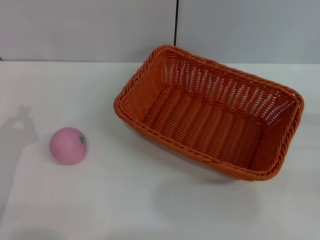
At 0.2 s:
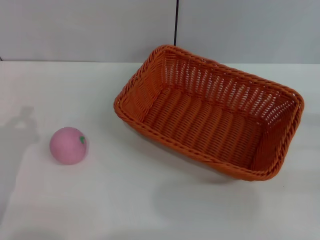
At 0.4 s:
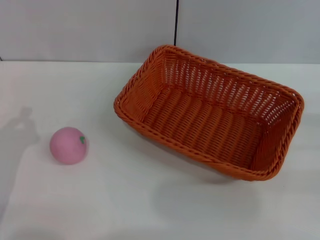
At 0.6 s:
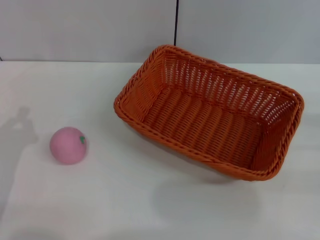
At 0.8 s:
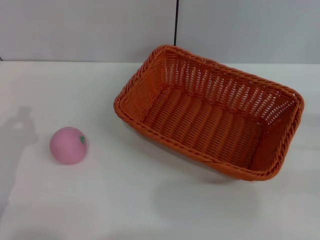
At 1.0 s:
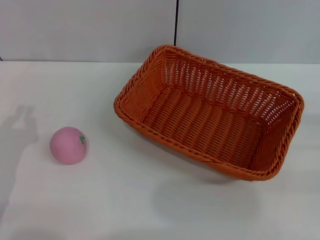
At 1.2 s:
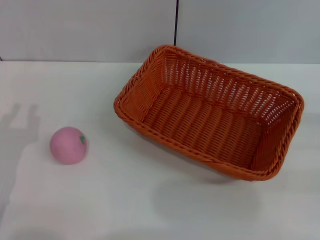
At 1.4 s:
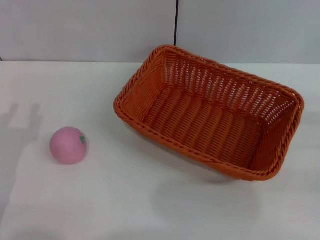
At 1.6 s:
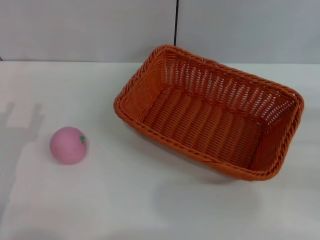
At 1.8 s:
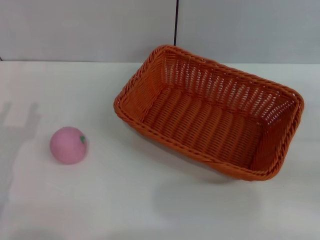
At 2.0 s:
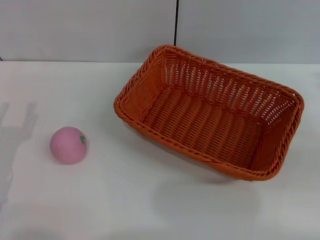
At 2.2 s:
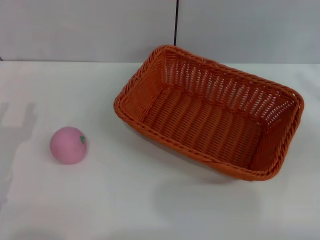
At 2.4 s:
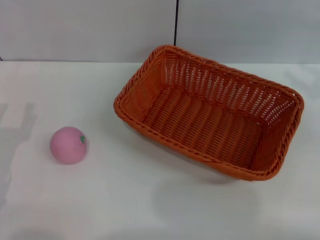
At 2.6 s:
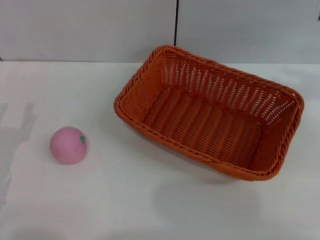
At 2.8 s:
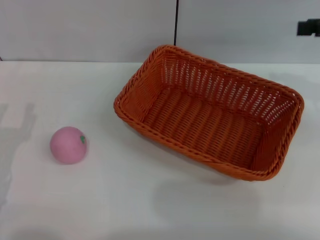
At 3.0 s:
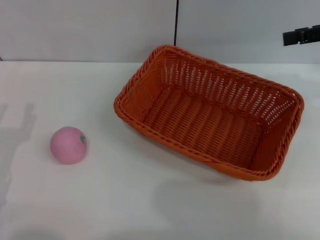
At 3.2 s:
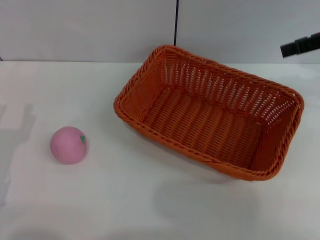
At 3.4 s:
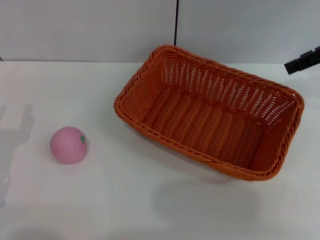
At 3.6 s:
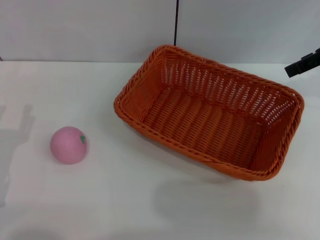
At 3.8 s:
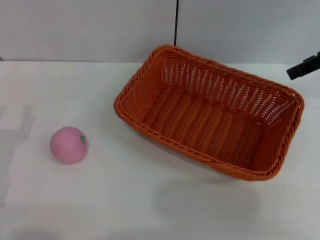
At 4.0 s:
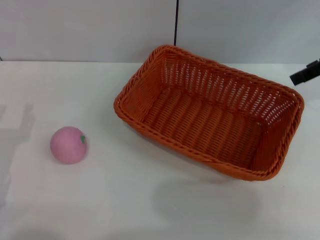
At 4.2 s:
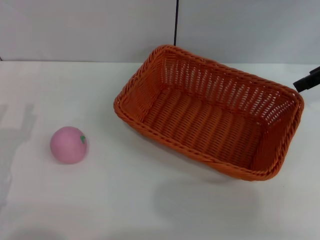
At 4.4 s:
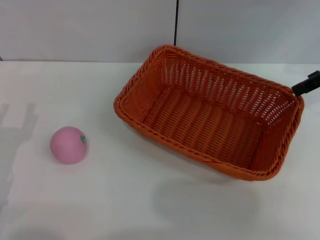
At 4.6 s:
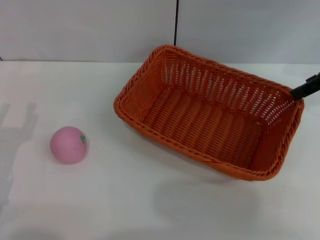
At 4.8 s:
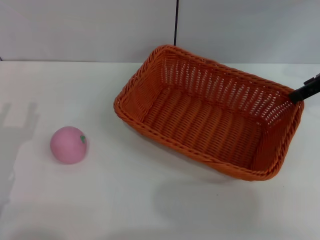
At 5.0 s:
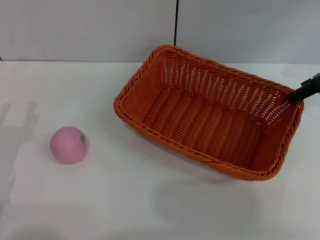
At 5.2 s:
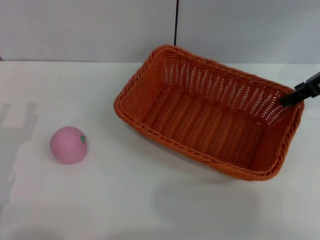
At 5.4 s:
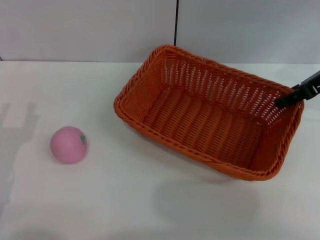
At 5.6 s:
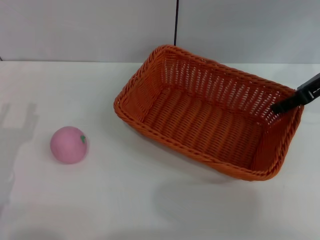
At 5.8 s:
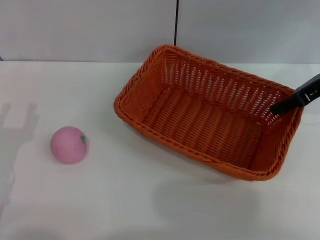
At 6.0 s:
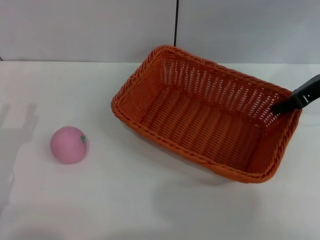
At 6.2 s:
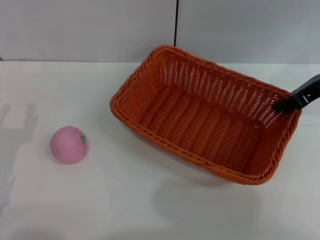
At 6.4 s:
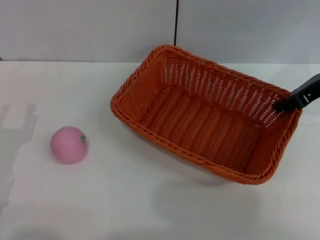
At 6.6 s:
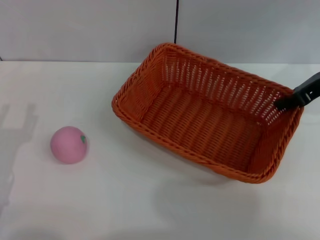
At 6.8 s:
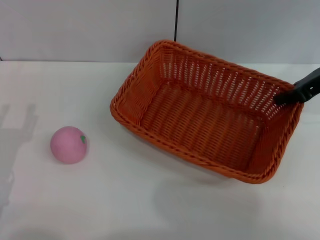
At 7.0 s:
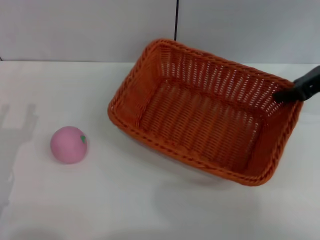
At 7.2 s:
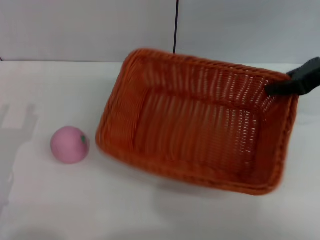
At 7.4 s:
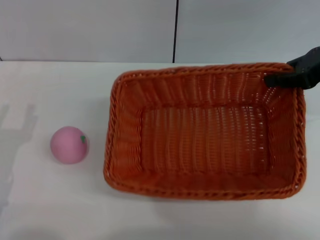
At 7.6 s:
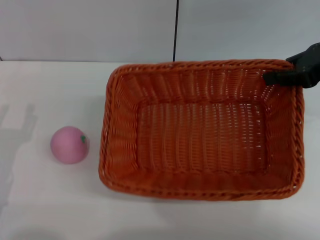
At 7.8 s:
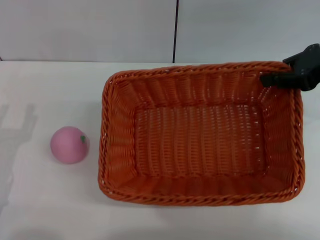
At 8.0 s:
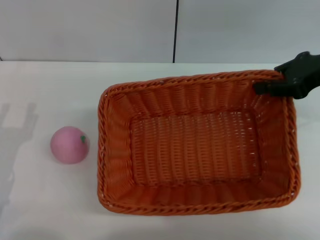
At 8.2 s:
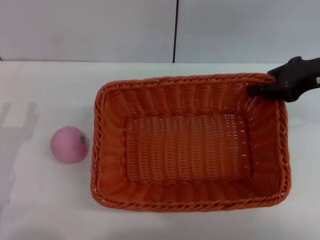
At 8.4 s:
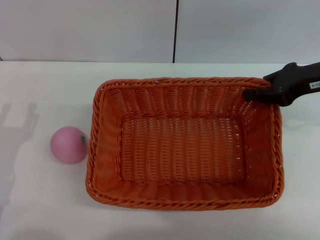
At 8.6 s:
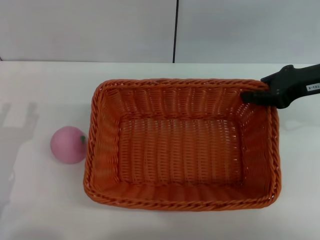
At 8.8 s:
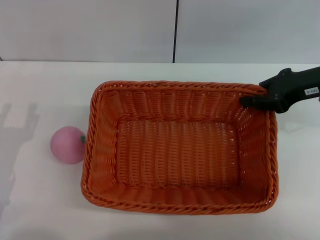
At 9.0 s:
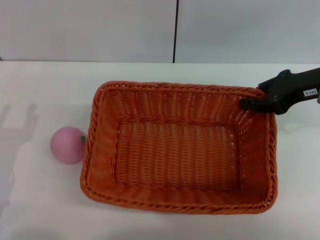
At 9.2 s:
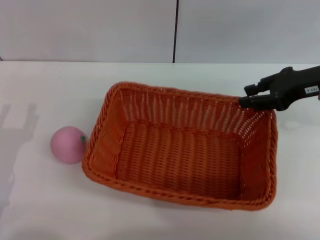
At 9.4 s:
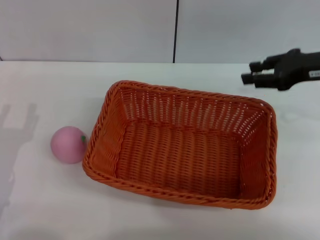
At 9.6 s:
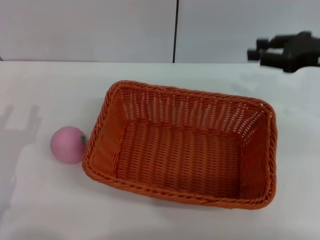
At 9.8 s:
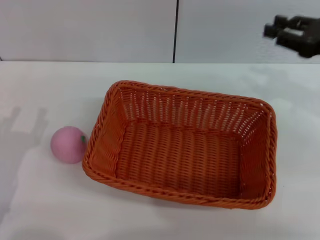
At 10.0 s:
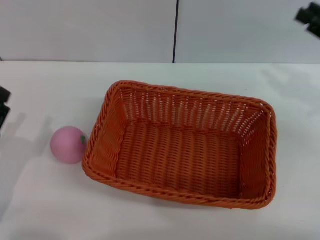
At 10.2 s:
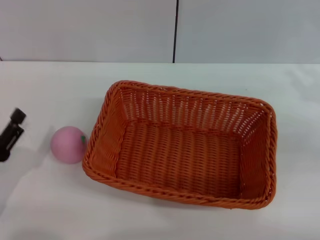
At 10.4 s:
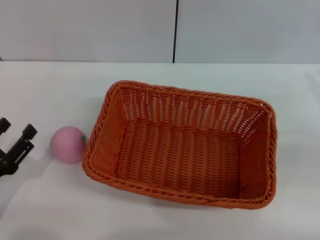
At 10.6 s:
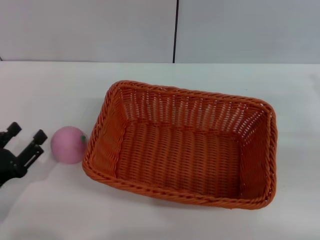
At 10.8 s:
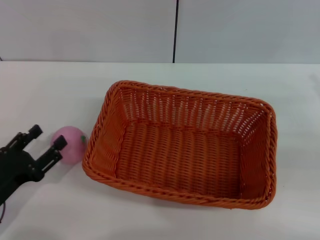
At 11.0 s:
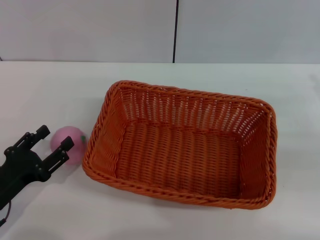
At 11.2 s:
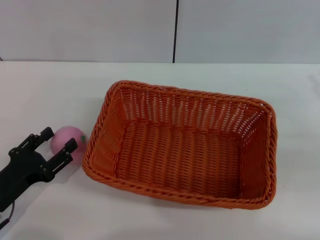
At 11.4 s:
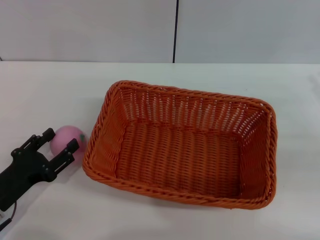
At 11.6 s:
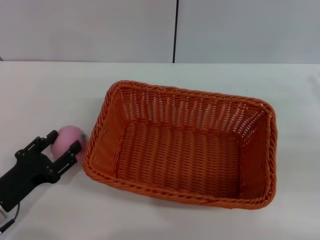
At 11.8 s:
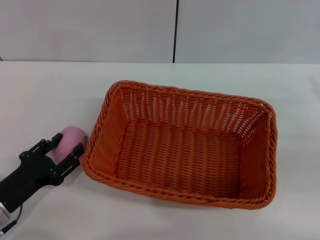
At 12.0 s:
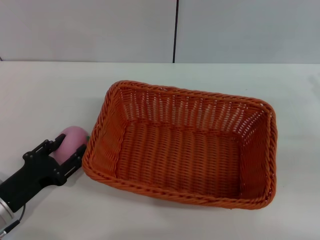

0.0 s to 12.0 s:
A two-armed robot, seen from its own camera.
Step, 0.0 to 7.0 s: Pick up the light basket with the right gripper.
Step, 7.4 to 9.6 s: Place the light basket in the center of view with the right gripper.
1.6 to 3.0 s: The right gripper moves upward, forward and to the left, roughly 25 cm.
4.4 to 6.0 s: The right gripper moves downward, roughly 5 cm.
6.0 to 7.6 s: The right gripper moves upward, roughly 5 cm, and closes up.
7.6 to 9.0 s: The right gripper moves downward, some 5 cm.
9.0 to 10.4 s: The right gripper is displaced to the right and backward by approximately 15 cm, and opens.
10.4 to 12.0 s: The grippers move only a little.

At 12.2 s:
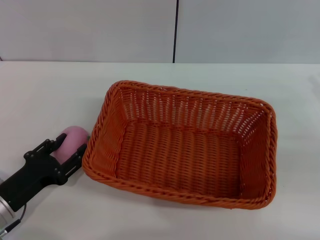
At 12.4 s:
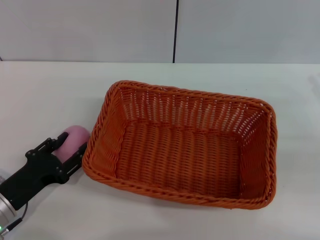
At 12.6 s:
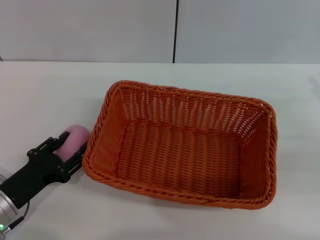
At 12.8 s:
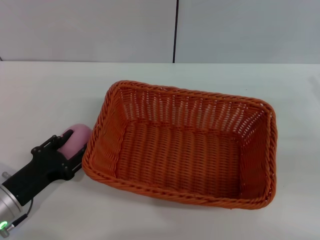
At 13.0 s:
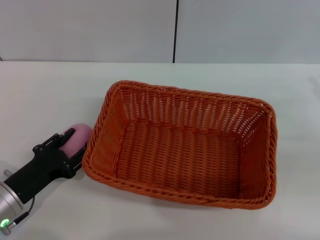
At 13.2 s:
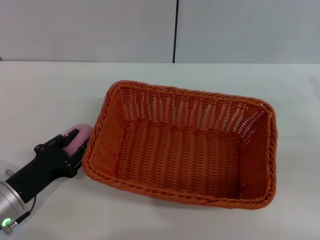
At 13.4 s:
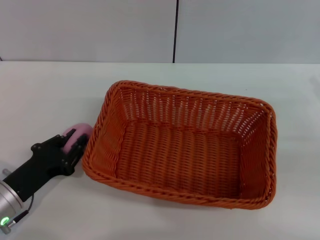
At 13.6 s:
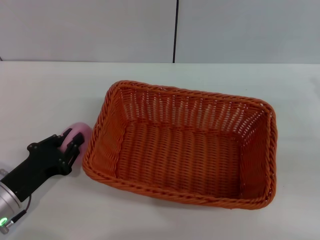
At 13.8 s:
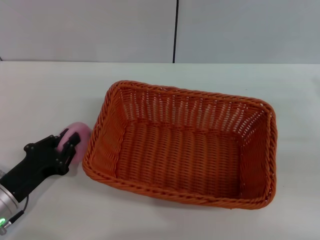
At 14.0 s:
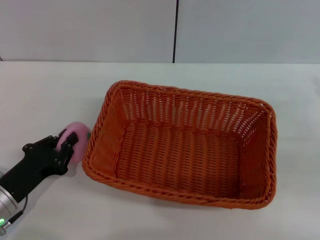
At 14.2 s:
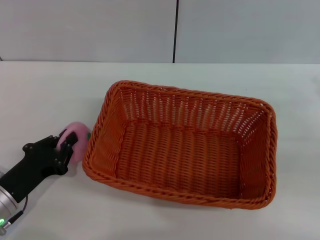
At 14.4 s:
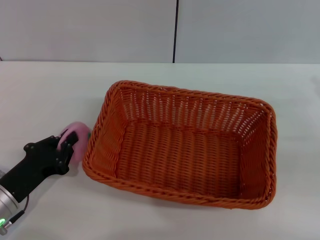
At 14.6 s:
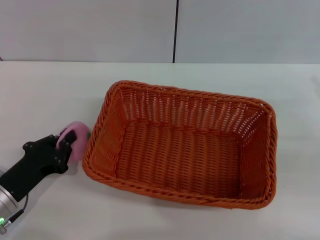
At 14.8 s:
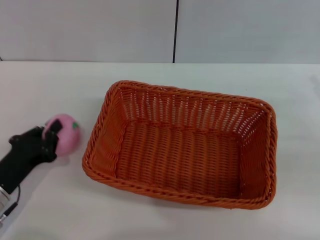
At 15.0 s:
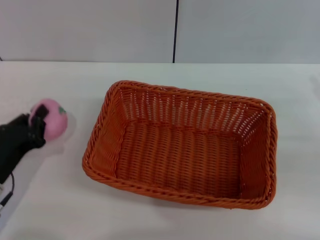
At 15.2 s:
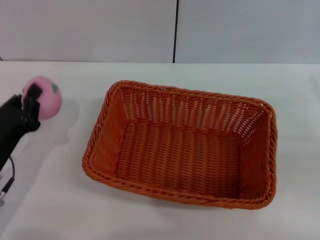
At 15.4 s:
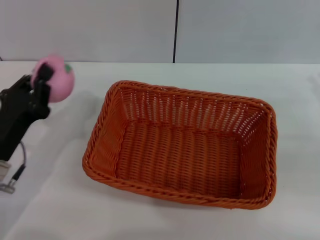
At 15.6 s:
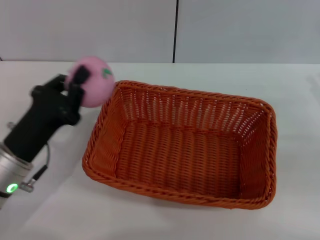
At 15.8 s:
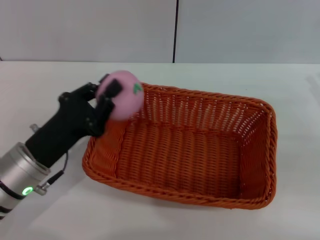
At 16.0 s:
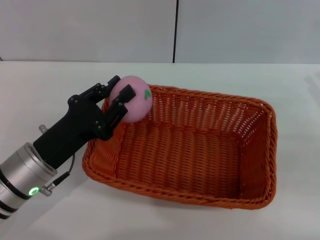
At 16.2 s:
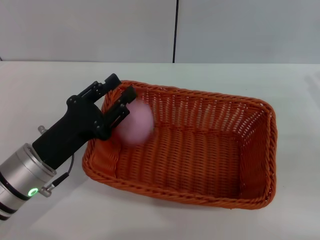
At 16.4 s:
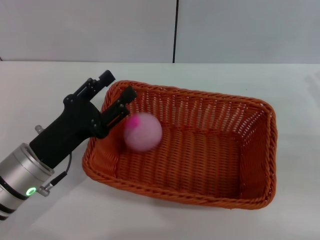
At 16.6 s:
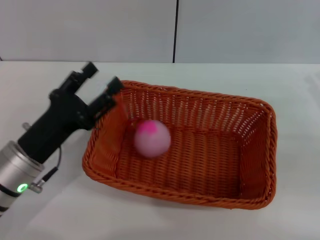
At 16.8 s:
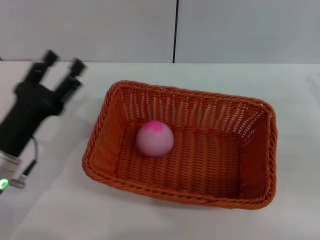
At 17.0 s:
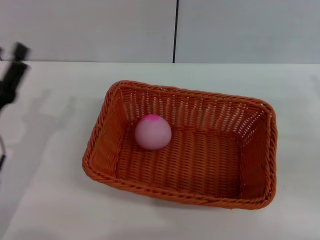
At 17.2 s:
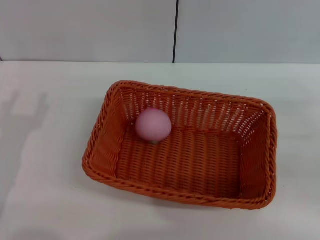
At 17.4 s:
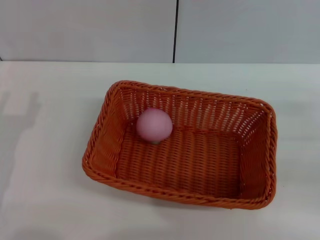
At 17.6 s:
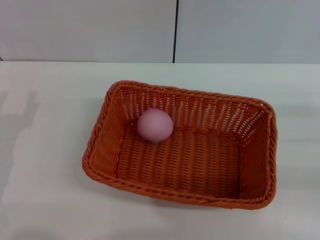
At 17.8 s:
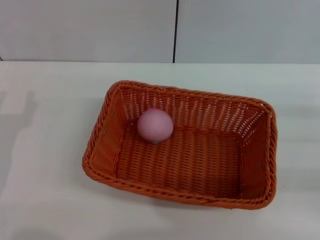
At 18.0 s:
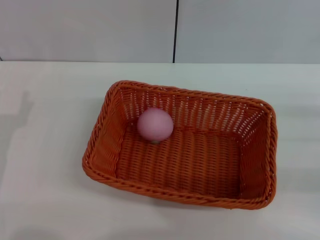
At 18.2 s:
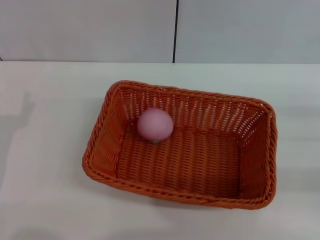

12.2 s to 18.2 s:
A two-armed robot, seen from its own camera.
Step, 12.2 to 15.0 s: Pick up the peach with the left gripper.
Step, 15.2 to 16.4 s: Place the peach into the basket with the left gripper.
12.2 to 13.8 s: The left gripper closes up.
15.2 to 16.6 s: The left gripper heads to the right, covering roughly 5 cm, and opens its fingers.
16.6 to 18.2 s: The left gripper travels to the left by about 10 cm.

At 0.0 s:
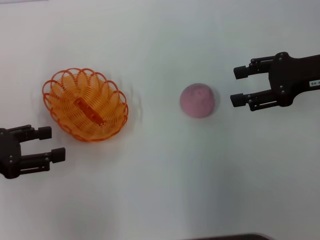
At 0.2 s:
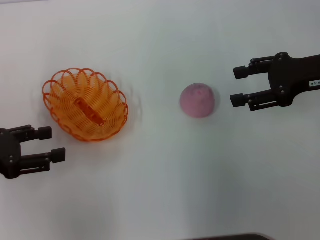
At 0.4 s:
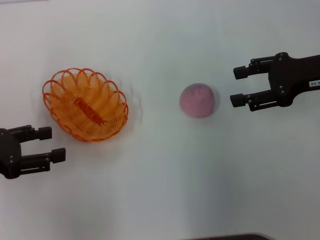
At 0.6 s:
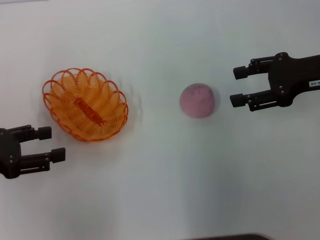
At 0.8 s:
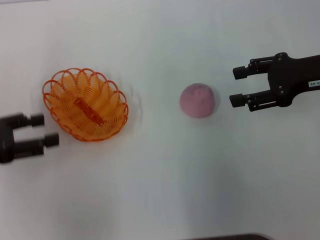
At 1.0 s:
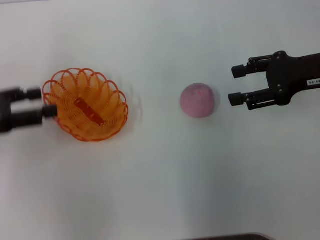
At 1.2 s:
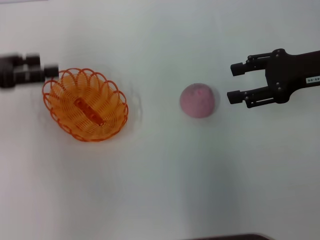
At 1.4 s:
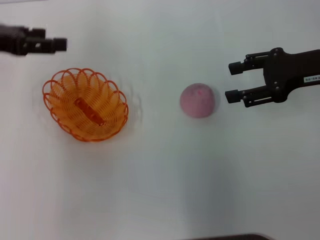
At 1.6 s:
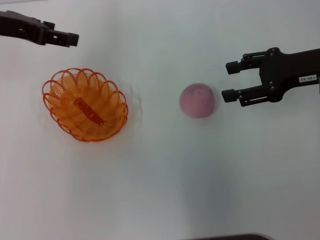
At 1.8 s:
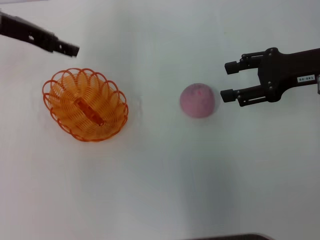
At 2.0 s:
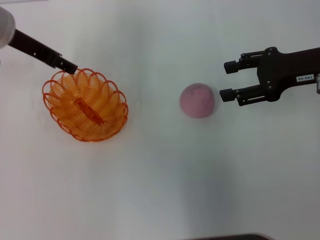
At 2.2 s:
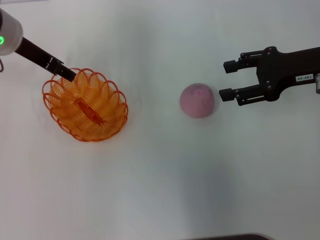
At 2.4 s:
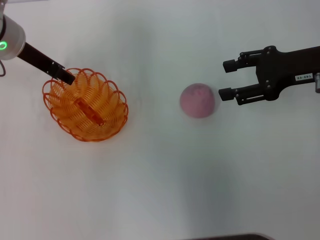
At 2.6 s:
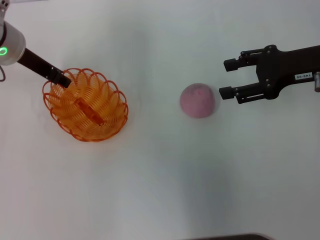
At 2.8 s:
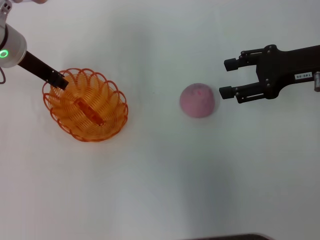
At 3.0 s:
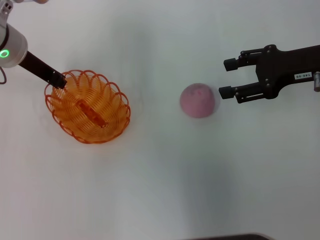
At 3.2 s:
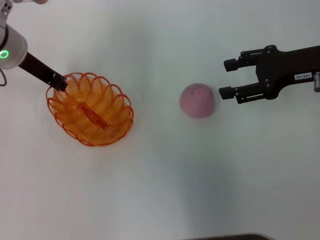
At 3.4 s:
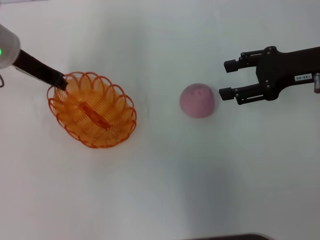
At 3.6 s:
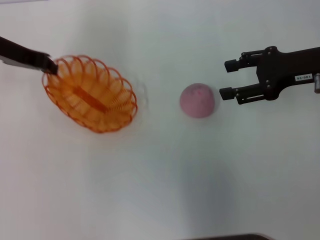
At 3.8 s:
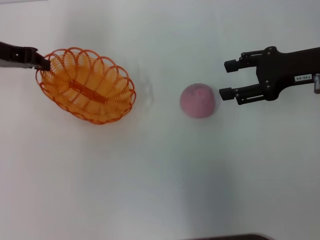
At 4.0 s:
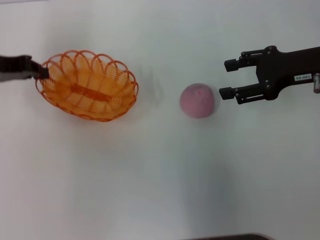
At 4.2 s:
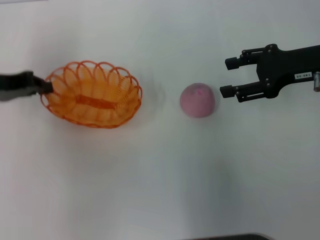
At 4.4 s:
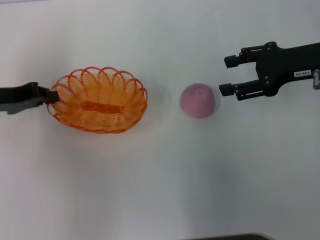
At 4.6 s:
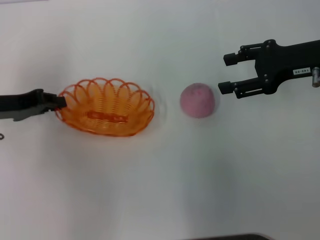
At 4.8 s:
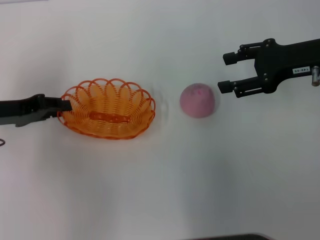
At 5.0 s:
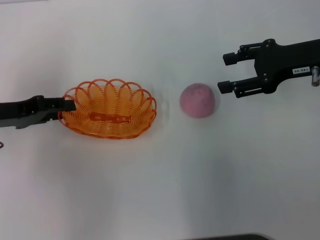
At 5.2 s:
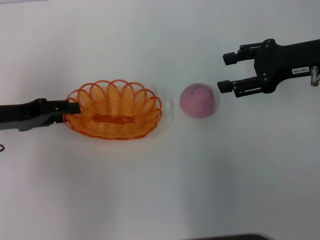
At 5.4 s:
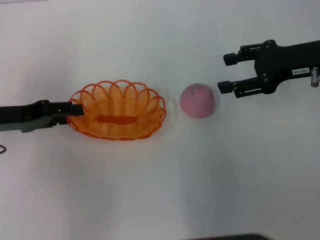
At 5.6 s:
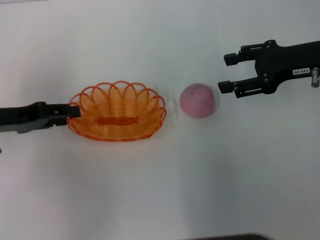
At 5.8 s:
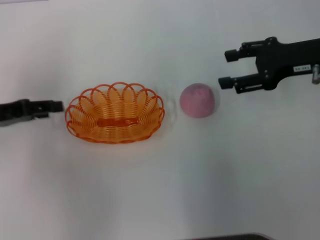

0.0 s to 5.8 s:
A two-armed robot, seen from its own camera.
Step, 0.0 to 4.0 s: Pick up the basket with the left gripper.
0.0 to 1.4 s: The left gripper heads forward and upward, covering approximately 15 cm.
1.4 to 2.8 s: The left gripper goes about 10 cm to the right, downward and forward, and closes.
2.8 to 4.4 s: The left gripper is displaced to the left and backward by approximately 10 cm, and closes.
4.4 to 5.8 s: The left gripper opens its fingers.
